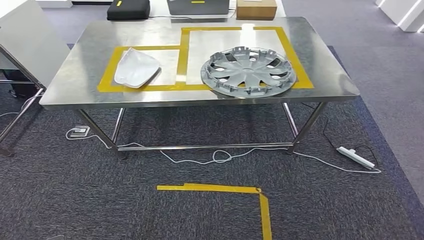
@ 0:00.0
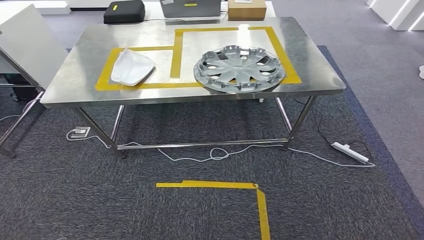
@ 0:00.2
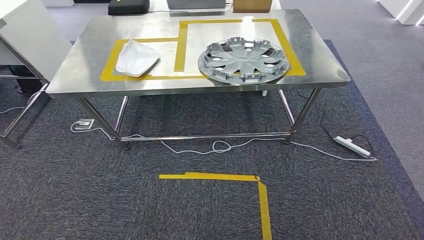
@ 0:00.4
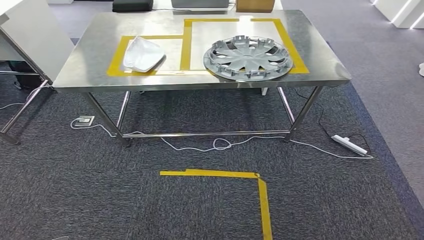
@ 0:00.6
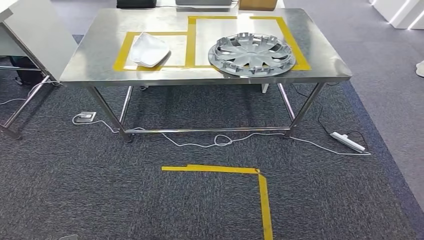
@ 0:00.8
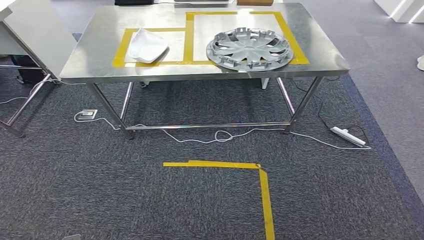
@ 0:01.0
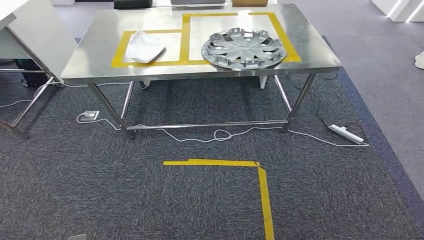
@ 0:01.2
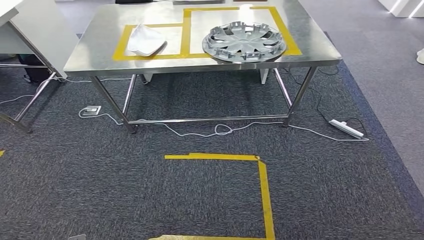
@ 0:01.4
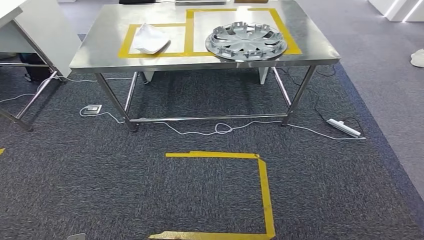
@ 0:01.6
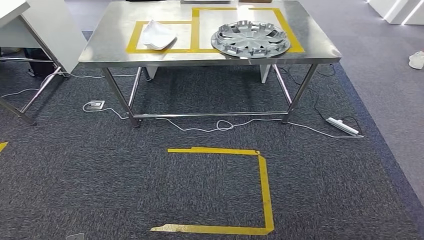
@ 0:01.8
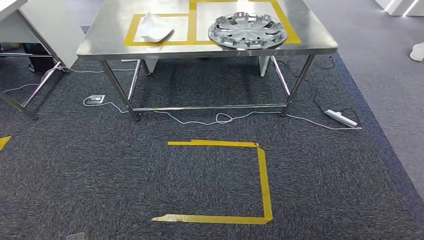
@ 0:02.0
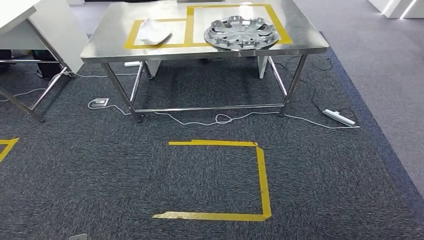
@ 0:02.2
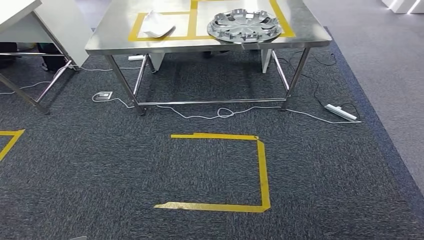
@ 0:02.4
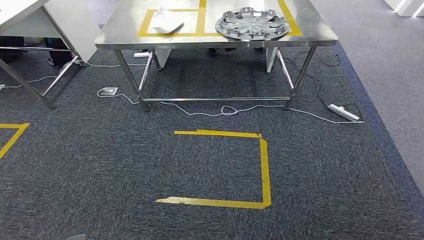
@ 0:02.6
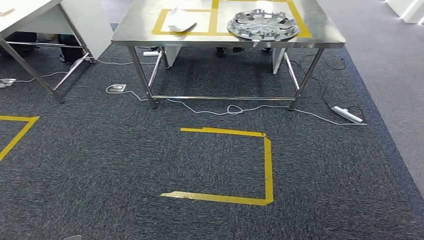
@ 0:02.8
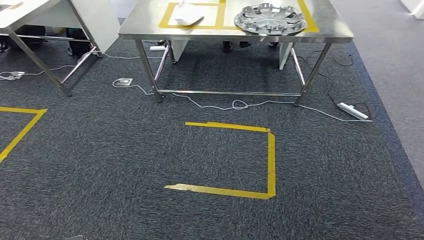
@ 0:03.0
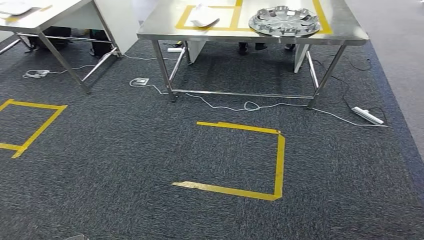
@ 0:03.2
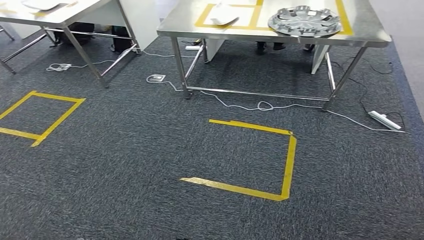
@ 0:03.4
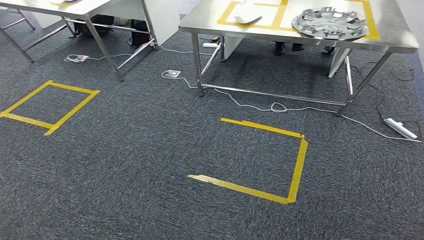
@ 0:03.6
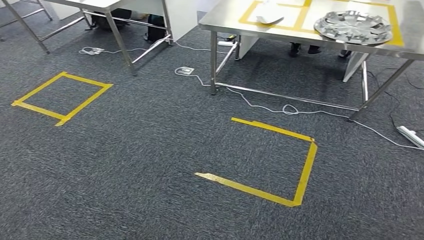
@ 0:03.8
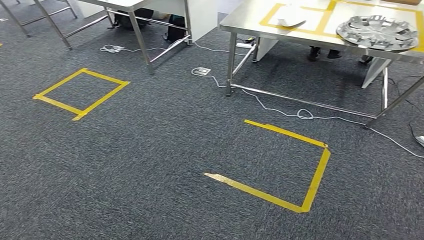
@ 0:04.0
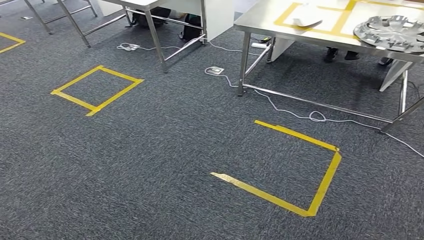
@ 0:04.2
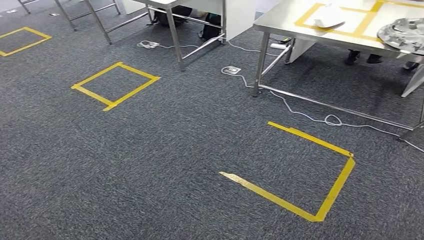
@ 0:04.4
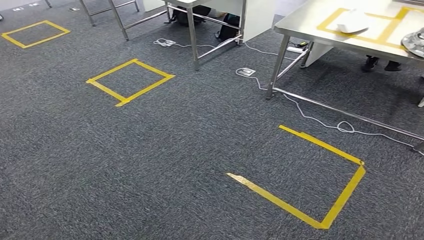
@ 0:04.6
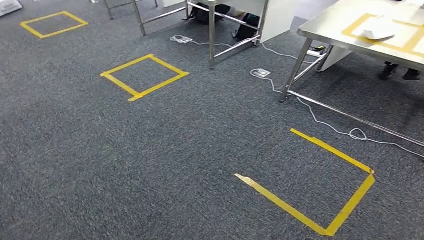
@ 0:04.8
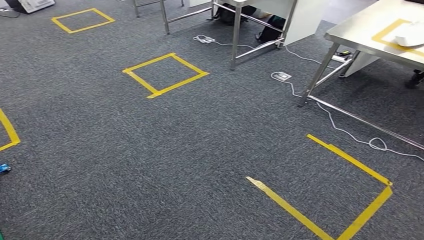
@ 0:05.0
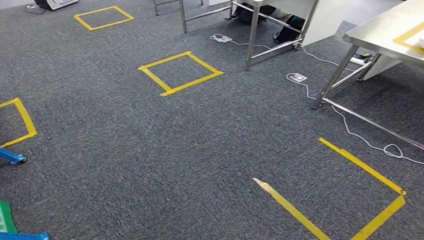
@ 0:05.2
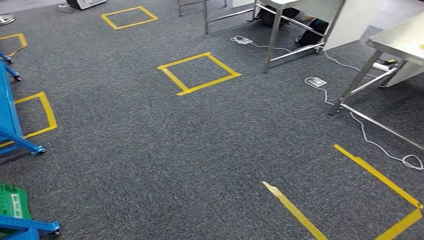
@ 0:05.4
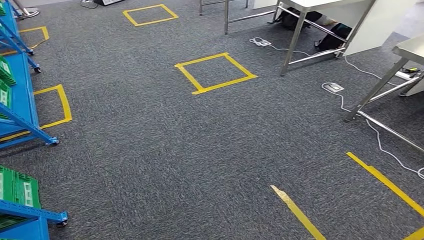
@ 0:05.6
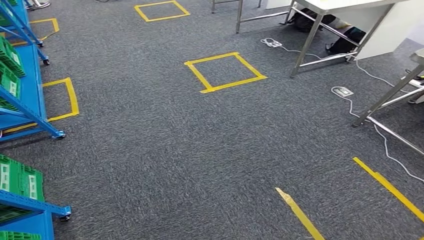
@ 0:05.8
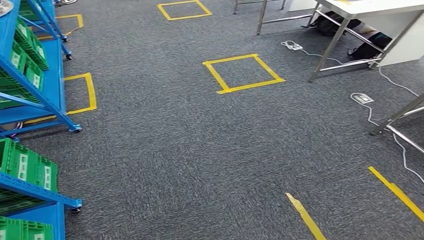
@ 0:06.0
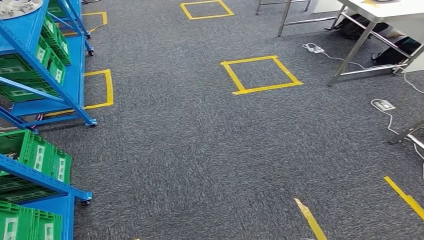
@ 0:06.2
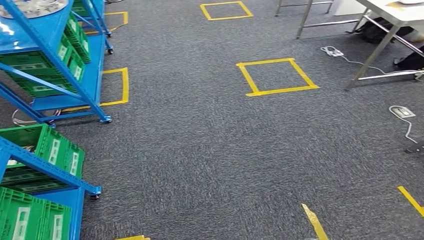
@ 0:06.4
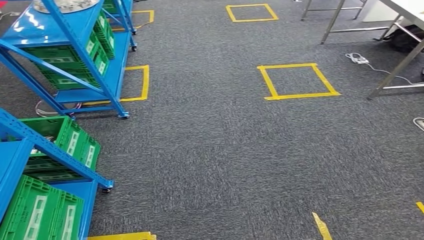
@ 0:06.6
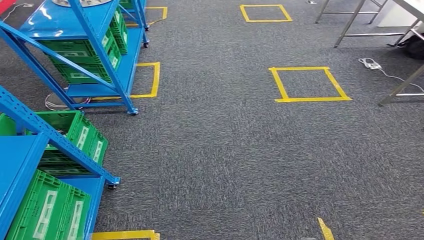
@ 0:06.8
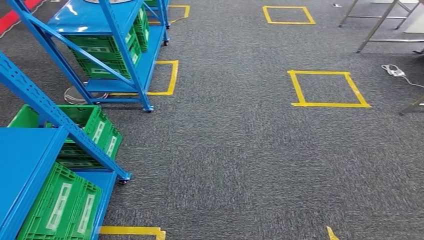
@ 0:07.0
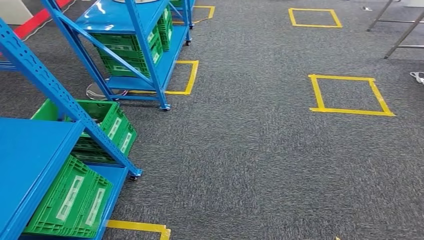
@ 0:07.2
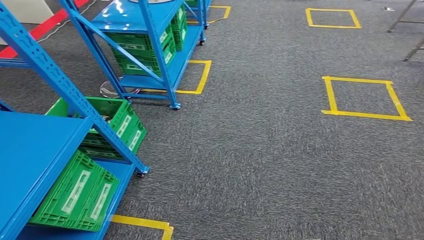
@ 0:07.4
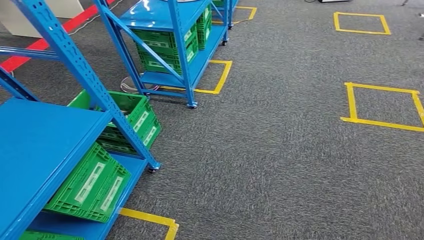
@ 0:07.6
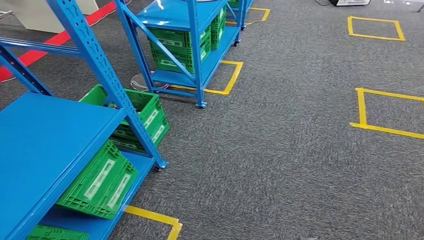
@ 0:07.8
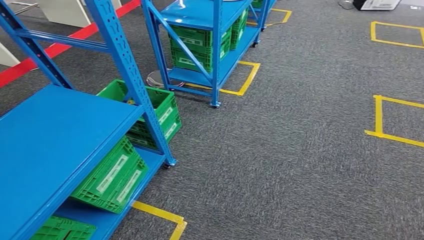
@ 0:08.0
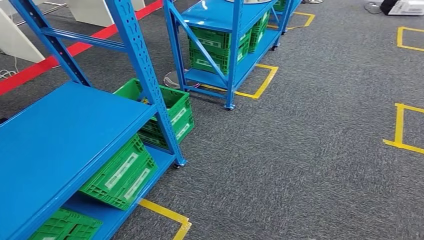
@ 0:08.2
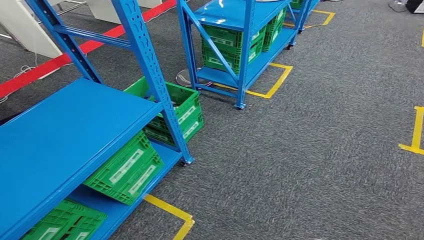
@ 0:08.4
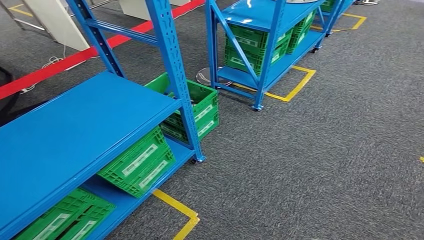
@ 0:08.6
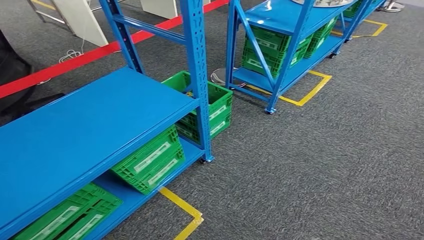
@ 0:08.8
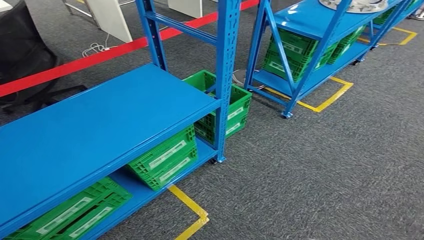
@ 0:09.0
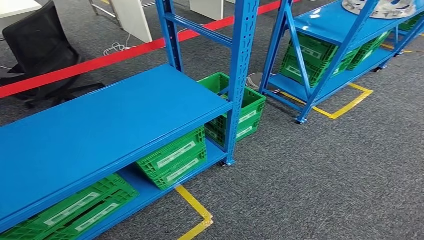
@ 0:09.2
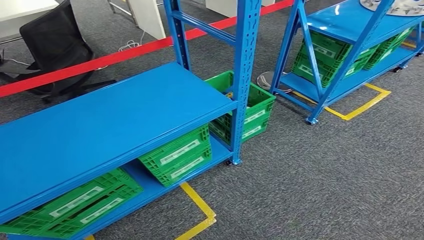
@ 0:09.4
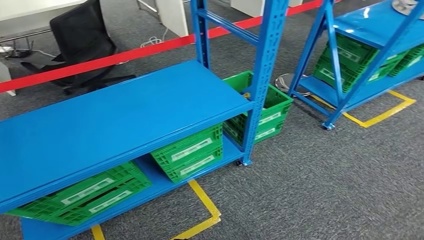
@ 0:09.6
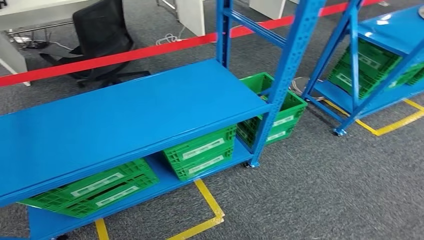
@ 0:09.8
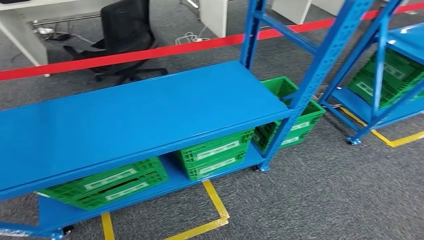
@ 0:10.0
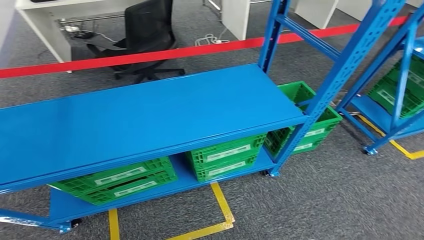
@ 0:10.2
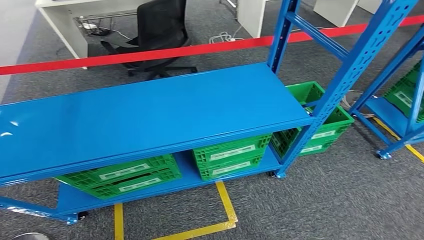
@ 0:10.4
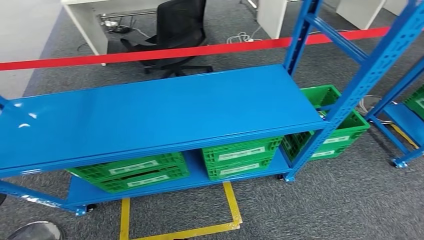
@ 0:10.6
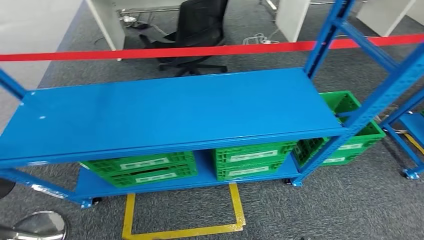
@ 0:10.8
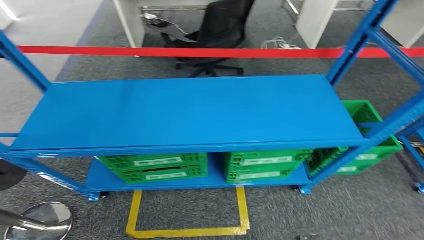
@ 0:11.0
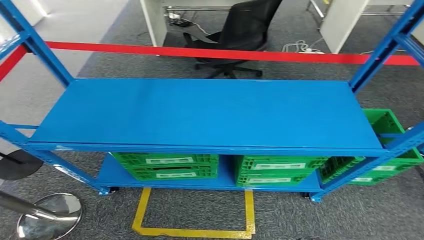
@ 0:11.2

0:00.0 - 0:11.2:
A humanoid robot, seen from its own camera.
Step, 0:00.0 - 0:11.0: Move to the initial position of the workbench.
